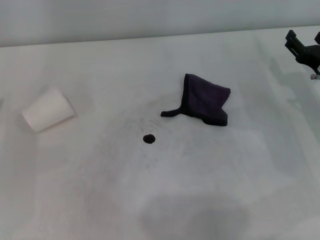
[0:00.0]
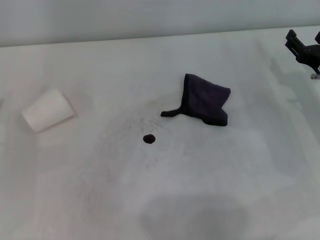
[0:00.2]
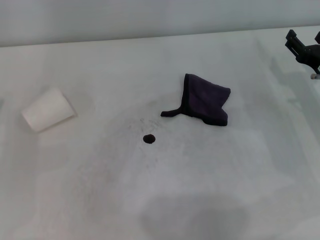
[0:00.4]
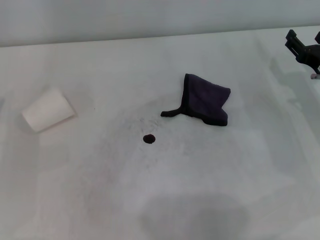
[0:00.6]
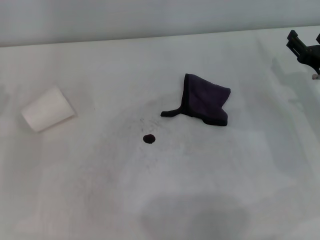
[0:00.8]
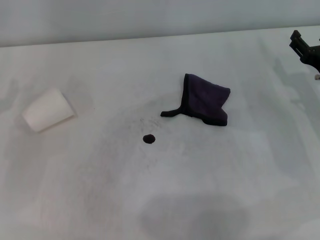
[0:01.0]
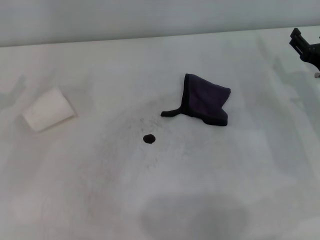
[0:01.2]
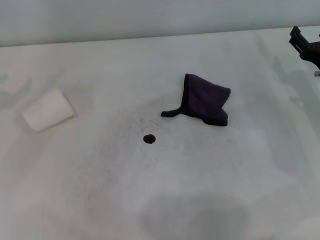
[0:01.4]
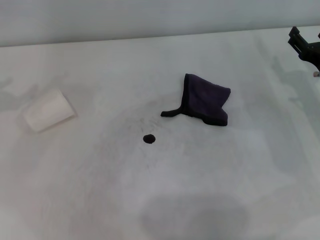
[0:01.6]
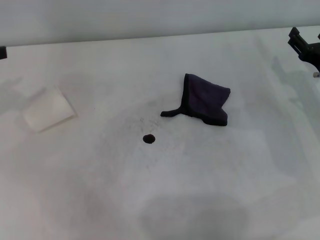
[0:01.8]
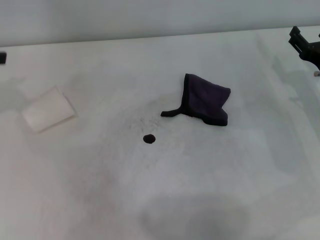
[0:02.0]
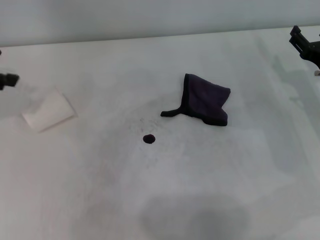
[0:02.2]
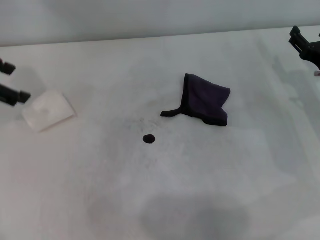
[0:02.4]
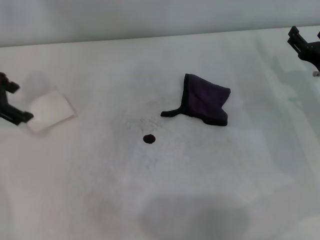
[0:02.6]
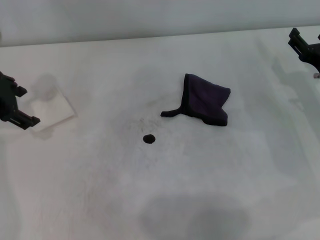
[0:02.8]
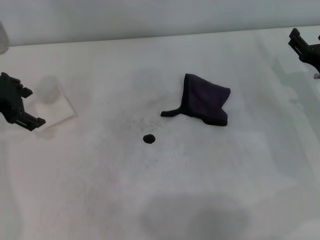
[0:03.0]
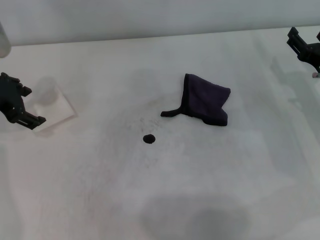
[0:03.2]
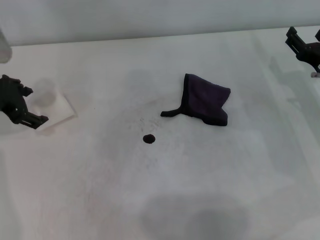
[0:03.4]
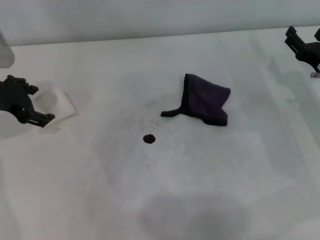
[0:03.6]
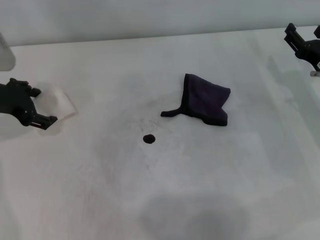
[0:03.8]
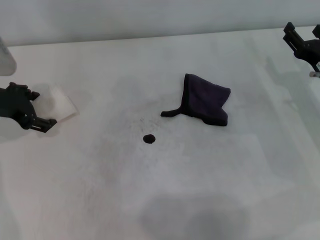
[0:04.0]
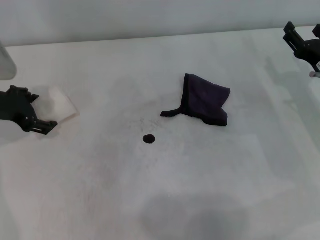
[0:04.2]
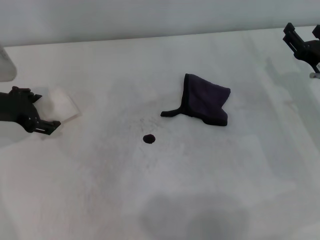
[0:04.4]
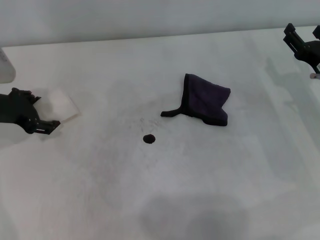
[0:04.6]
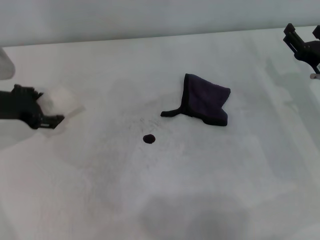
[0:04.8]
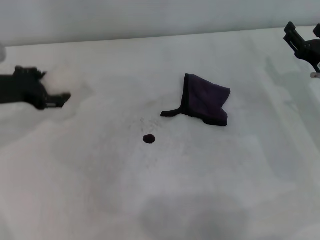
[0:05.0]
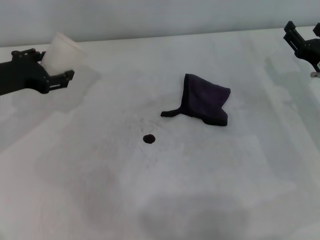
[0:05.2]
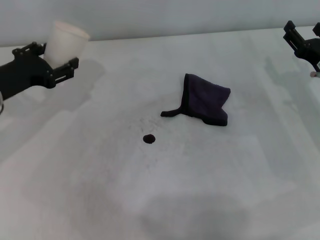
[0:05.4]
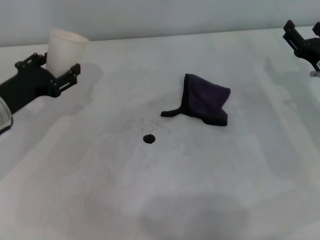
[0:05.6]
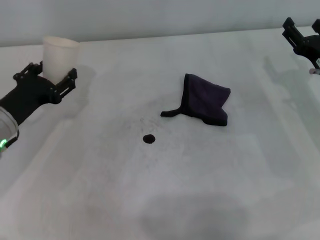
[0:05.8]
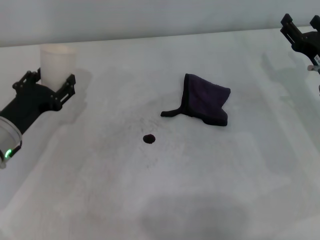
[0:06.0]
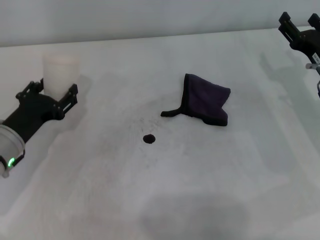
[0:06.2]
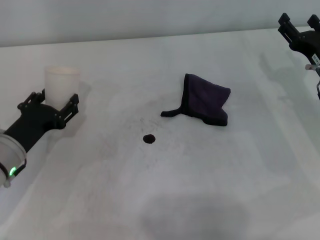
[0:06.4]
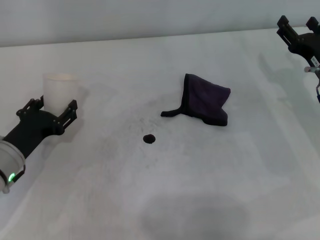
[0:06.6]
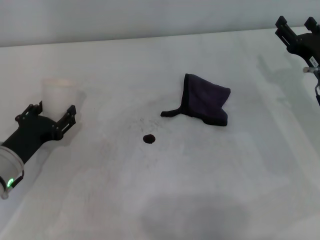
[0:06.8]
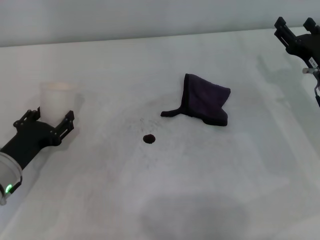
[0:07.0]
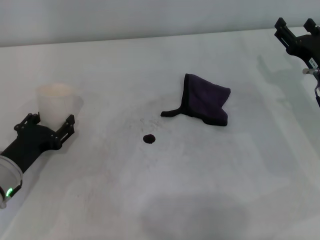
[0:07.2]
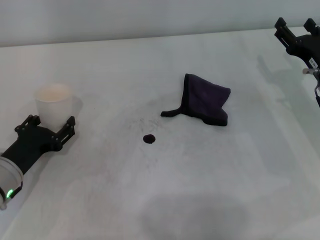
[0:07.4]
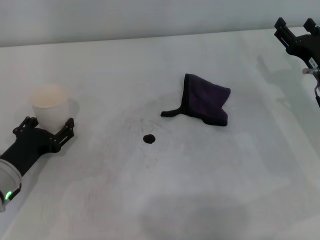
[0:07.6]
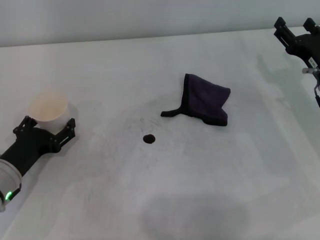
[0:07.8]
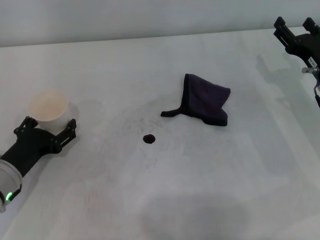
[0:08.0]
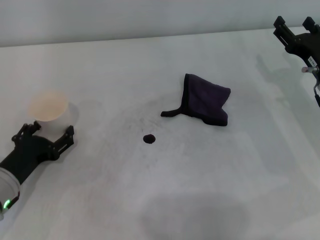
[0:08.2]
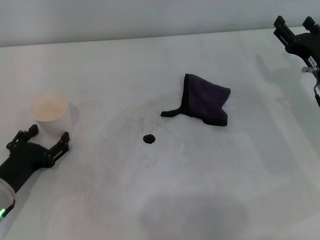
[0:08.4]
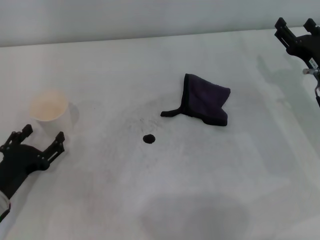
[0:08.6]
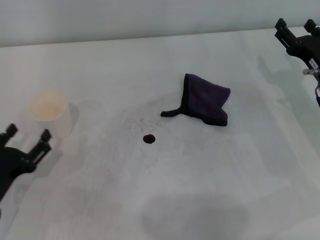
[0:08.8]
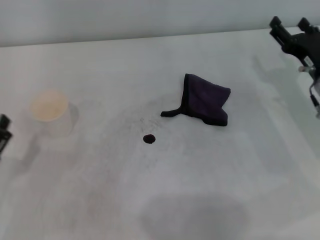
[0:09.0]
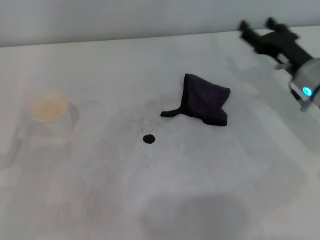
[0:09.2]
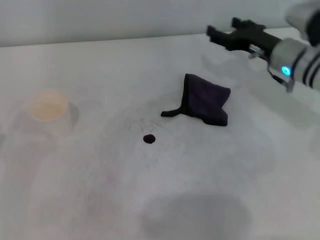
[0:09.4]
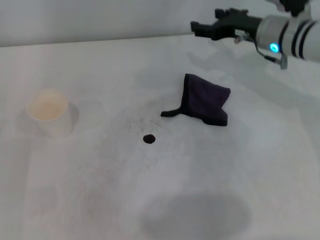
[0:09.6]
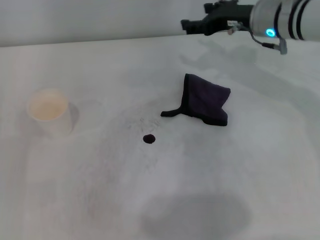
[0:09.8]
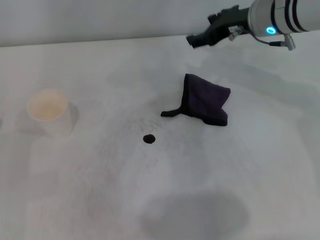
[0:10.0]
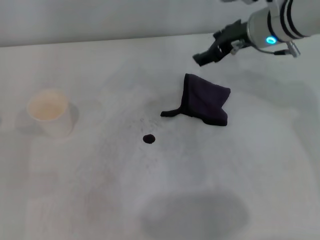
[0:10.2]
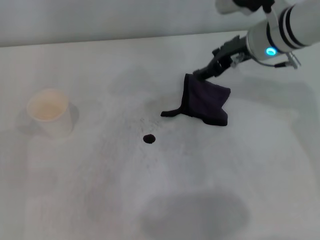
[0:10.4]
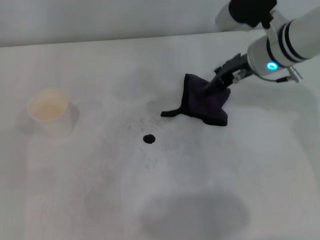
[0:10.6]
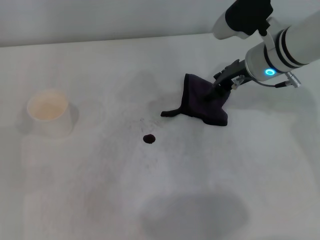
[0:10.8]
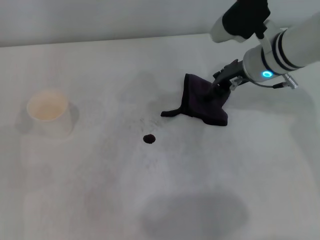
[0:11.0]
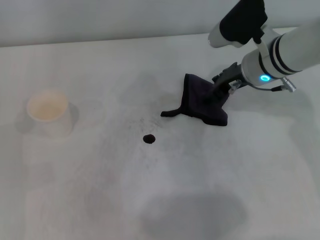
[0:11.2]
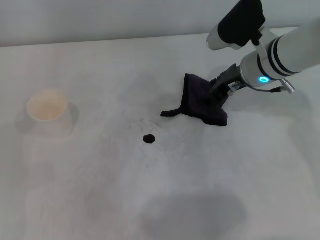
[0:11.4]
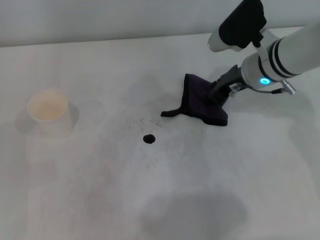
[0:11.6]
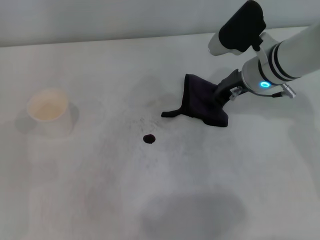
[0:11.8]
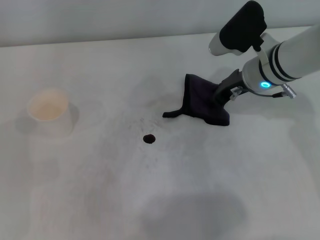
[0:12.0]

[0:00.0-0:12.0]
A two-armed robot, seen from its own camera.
Step, 0:00.0 to 0:04.0: Grasp the paper cup with the left gripper.
Step, 0:04.2 to 0:08.0: Stand the paper cup upright with the left gripper.
0:01.6 to 0:03.0: The left gripper travels to the right by approximately 10 cm.
0:03.0 to 0:04.4: The left gripper shifts approximately 5 cm downward.
0:04.4 to 0:06.0: The left gripper heads downward and backward, covering about 10 cm, and closes its fingers.
0:06.0 to 0:07.6: The left gripper is displaced backward by roughly 5 cm.
0:07.6 to 0:09.0: The left gripper travels backward by some 10 cm, and opens its fingers.
0:09.0 to 0:10.4: The left gripper moves forward, approximately 5 cm, while the right gripper is displaced upward, to the left and forward by some 15 cm.
0:10.4 to 0:12.0: The right gripper goes approximately 5 cm downward, and closes.

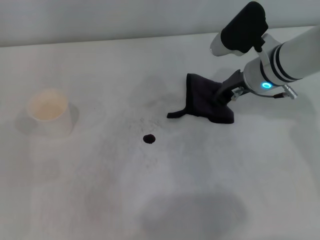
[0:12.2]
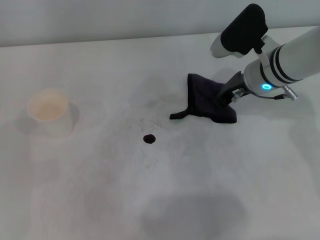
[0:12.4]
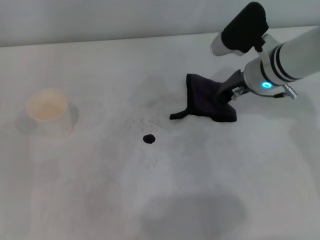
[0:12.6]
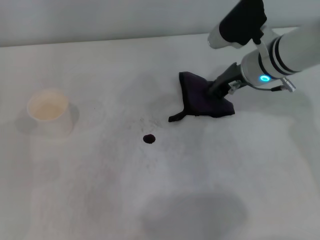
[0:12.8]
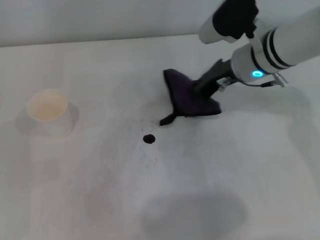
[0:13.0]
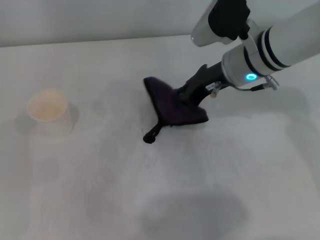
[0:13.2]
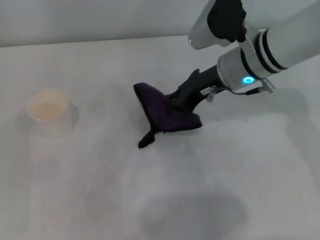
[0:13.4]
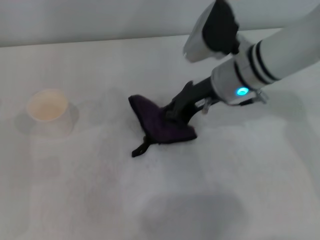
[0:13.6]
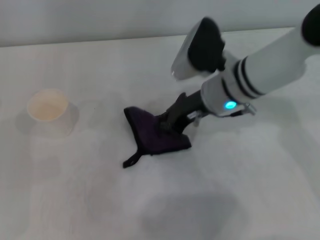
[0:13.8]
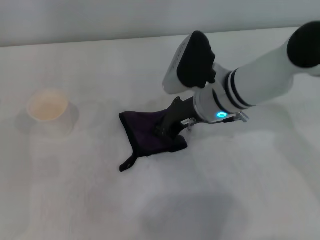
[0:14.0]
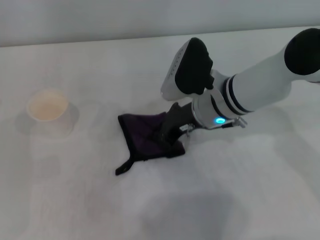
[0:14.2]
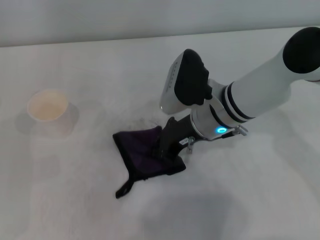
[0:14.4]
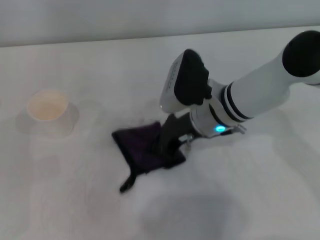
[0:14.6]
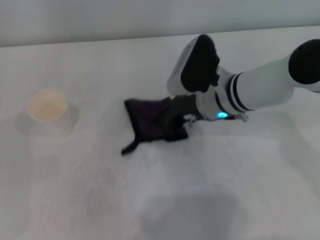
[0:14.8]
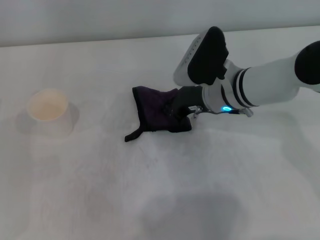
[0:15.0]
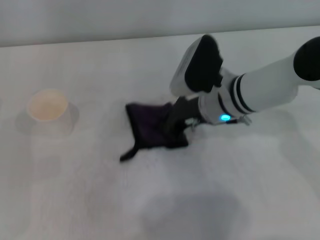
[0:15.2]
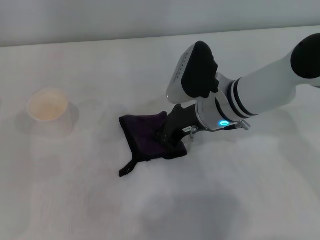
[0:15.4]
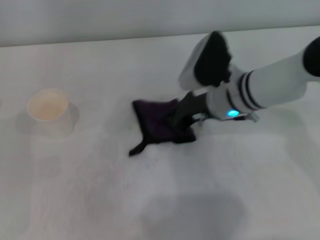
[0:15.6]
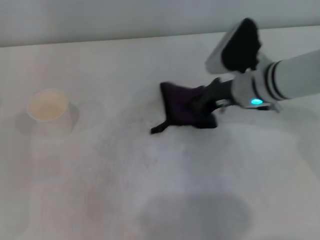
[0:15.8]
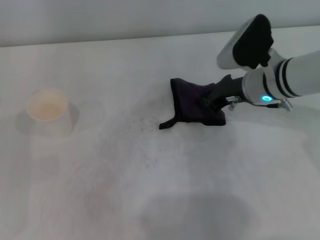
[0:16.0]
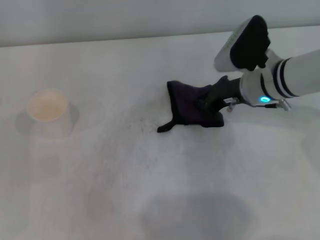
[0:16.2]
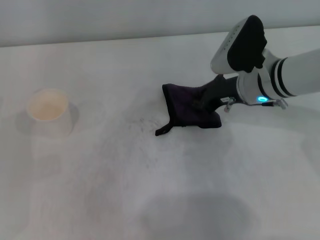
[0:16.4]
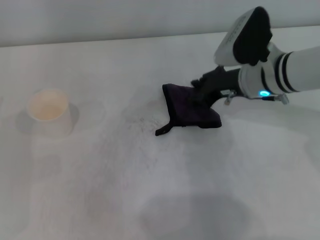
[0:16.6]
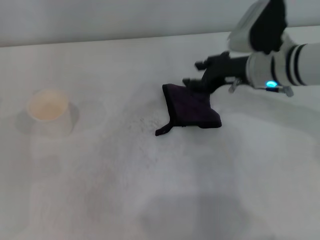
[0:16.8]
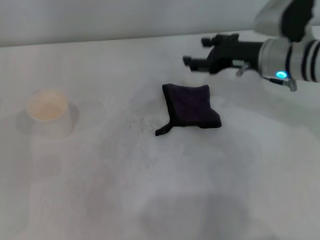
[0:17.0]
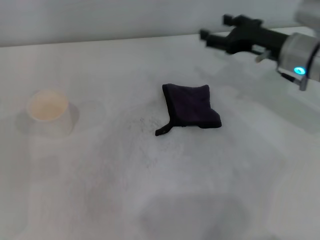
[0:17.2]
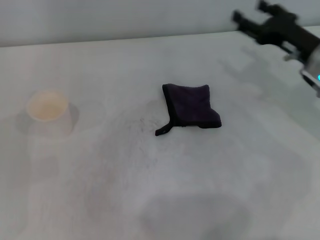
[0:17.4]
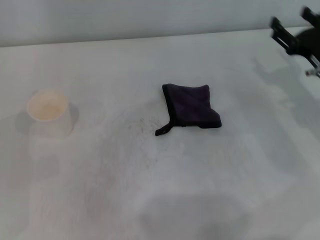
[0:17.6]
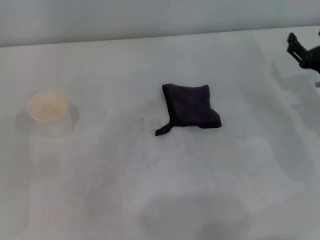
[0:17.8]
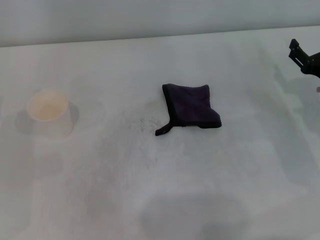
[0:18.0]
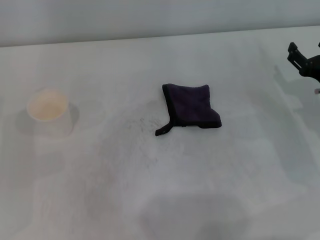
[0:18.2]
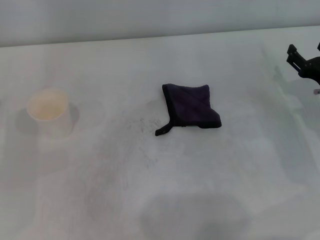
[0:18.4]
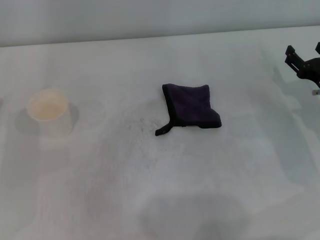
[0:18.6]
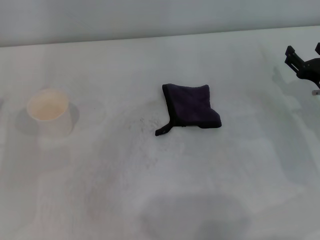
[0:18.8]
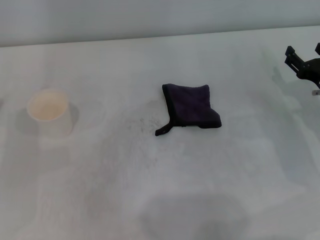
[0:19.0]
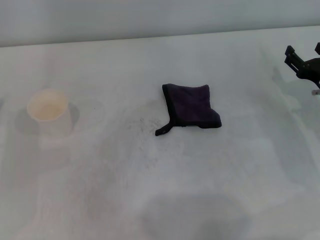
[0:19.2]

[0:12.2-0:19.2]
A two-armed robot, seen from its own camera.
Step, 0:12.2 to 0:15.6: Wipe the stains off the table with the right gripper.
Step, 0:15.8 to 0:16.4: Place the rag on the table with the right gripper.
0:12.2 to 0:13.6: The right gripper moves to the left, approximately 5 cm, and closes up.
0:13.6 to 0:15.0: The grippers stay close to where they were, moving slightly.
0:15.0 to 0:16.4: The right gripper heads to the right, covering roughly 5 cm.
0:16.4 to 0:17.8: The right gripper shifts some 15 cm to the right and backward, and opens its fingers.
0:17.8 to 0:19.2: The grippers make only small movements.
